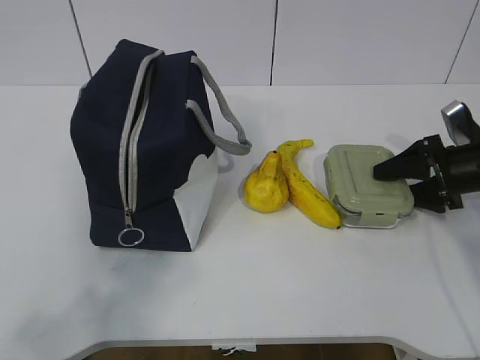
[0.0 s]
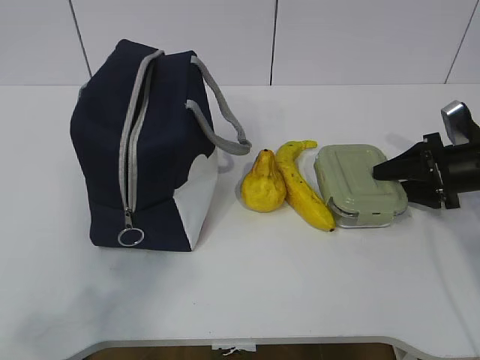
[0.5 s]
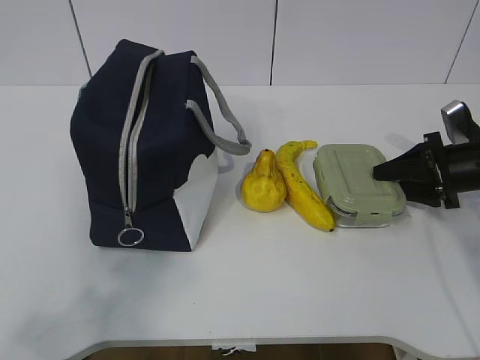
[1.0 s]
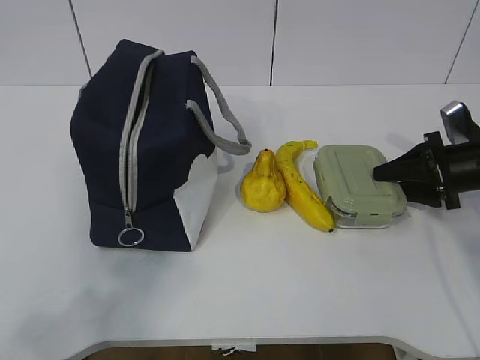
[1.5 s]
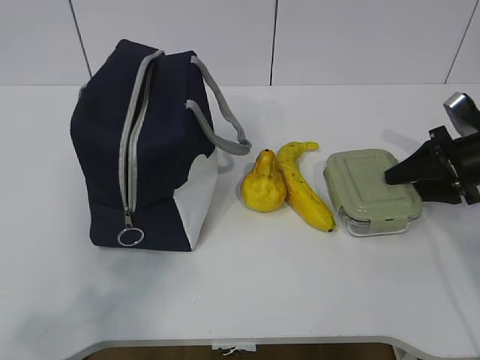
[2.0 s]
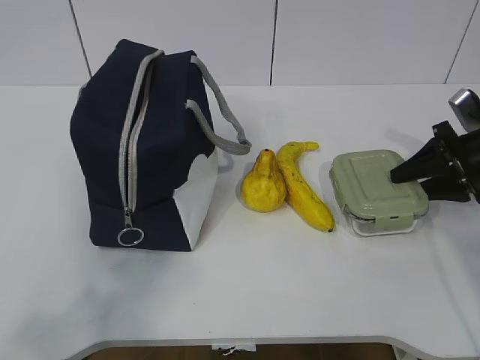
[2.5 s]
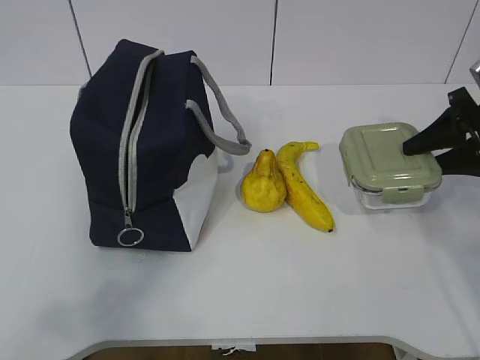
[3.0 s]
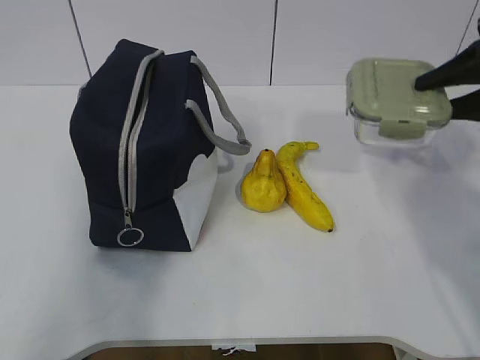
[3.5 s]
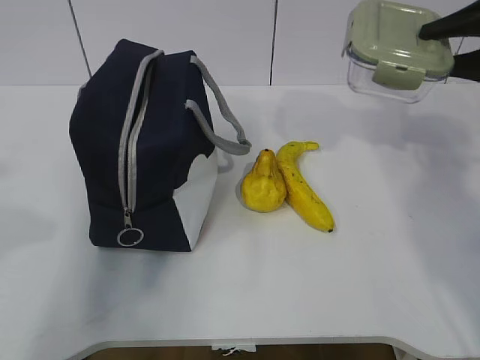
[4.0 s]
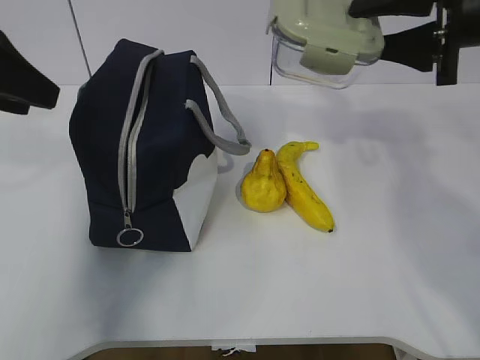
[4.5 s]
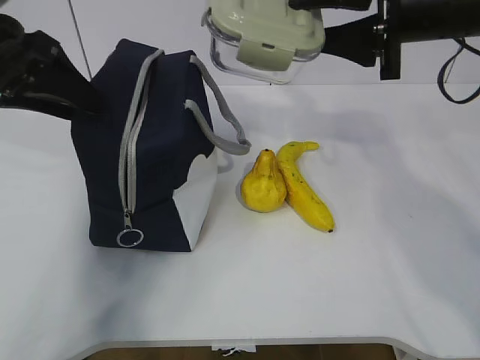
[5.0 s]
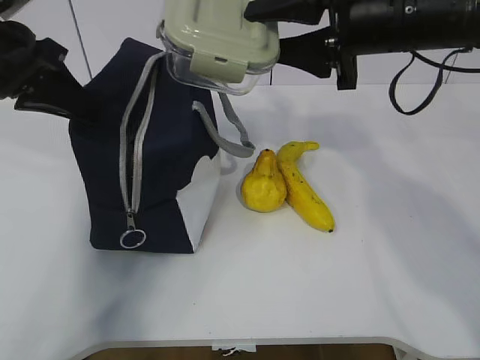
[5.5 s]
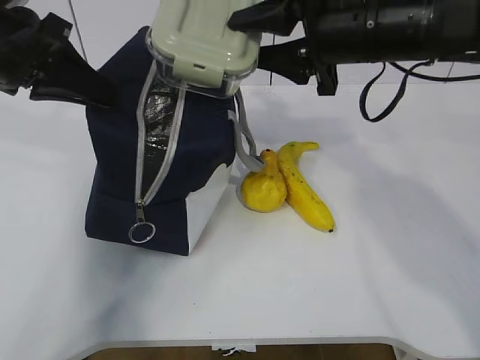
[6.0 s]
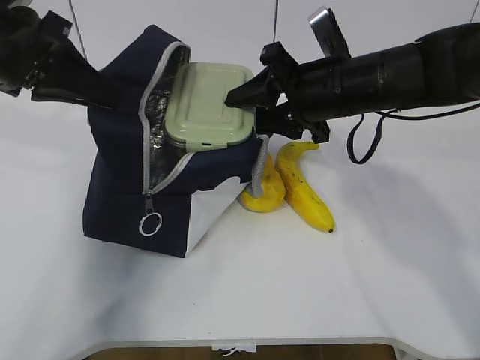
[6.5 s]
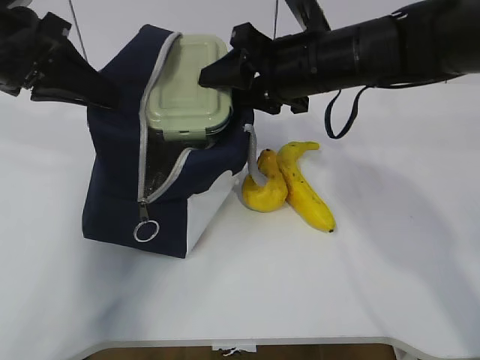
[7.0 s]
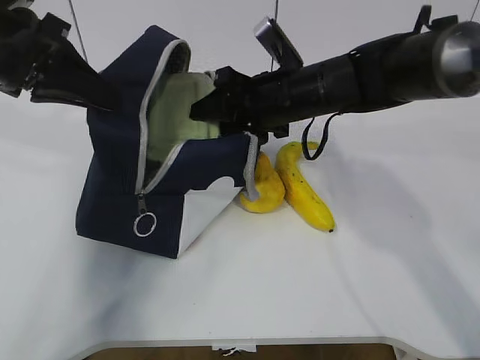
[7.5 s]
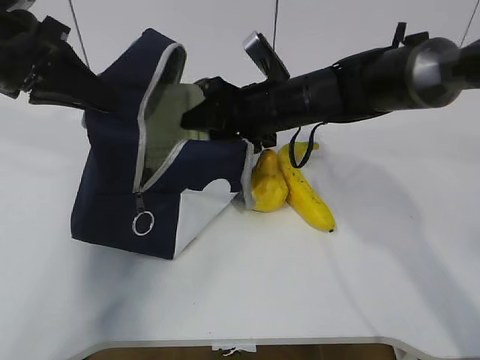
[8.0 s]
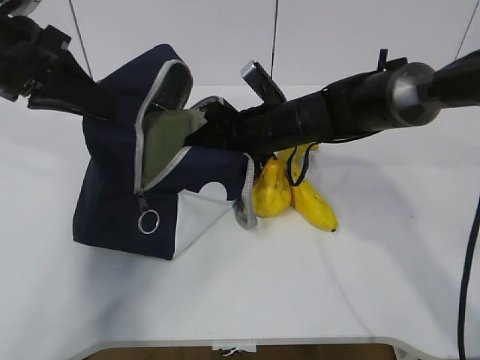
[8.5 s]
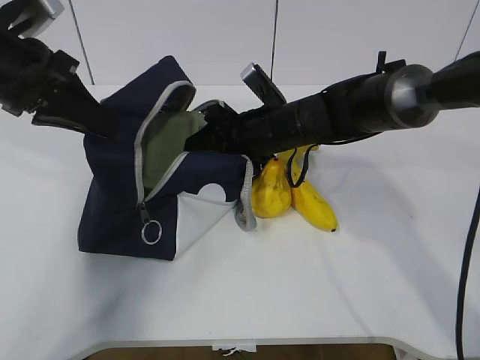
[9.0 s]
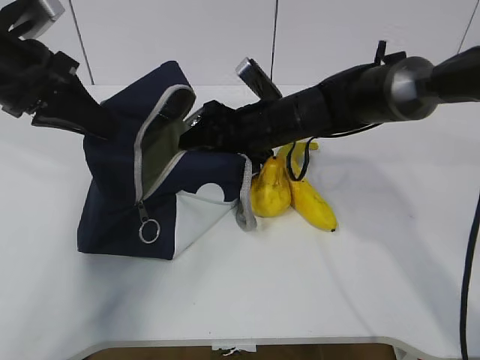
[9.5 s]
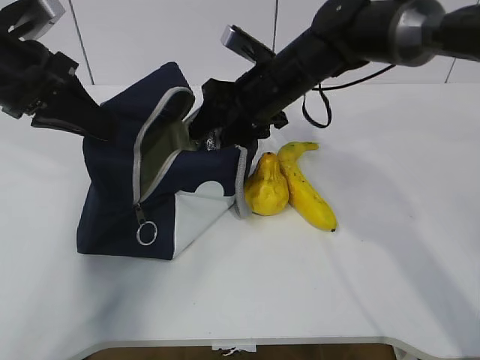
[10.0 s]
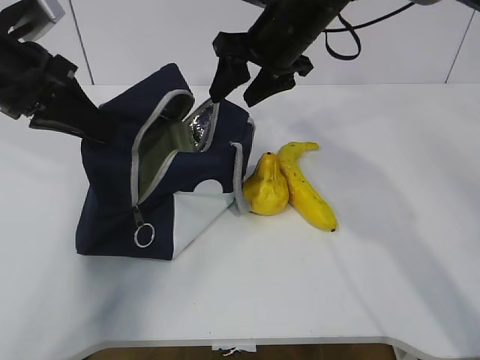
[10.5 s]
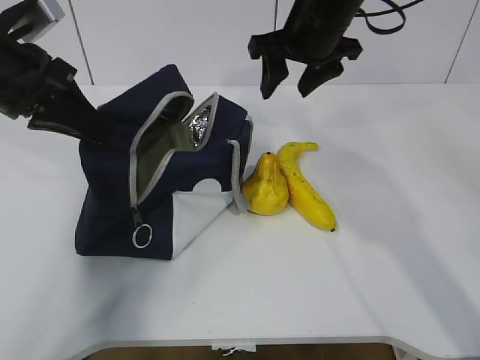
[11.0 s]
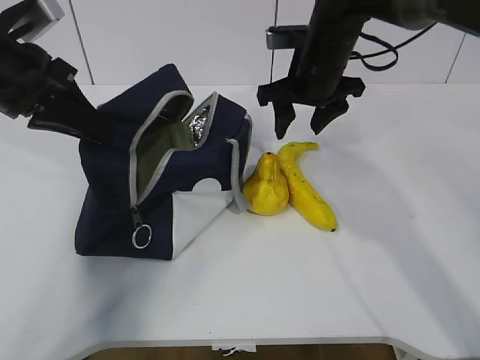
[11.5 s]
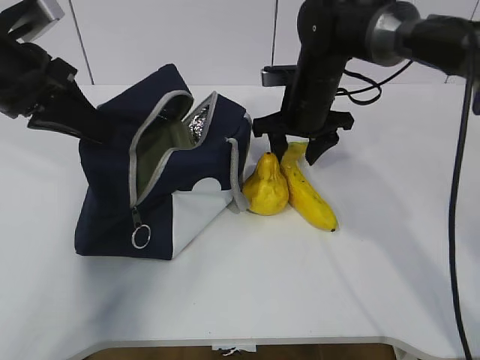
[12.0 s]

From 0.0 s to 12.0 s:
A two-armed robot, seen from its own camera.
Step, from 0.0 s to 3.5 s: Grab the lunch bag with your left hand.
Step, from 4.0 s to 6.0 s: Place it into the bag with your right hand.
Step, from 6.5 s to 9.5 s: Grab the banana with your right hand.
Step, from 10.0 s to 12.0 s: Place it into the bag with your right hand.
From 0.0 s to 2.0 s: The grippers stay close to where they were, moving slightly.
From 2.0 s to 4.0 s: The right gripper travels upward by about 15 cm; the left gripper shifts some 15 cm forward.
From 4.0 s to 6.0 s: The left gripper moves forward, approximately 20 cm, and closes up. The right gripper moves to the left, about 20 cm.
From 6.0 s to 8.0 s: The right gripper moves downward, forward and to the left, some 15 cm.
From 10.0 s to 12.0 s: The right gripper changes place by approximately 5 cm.

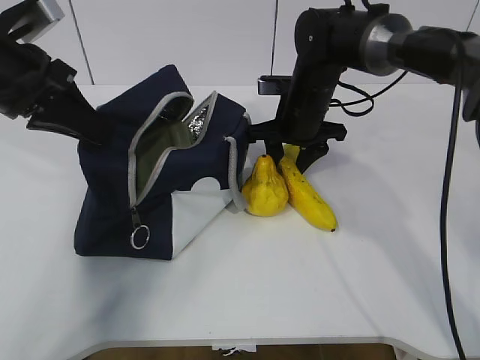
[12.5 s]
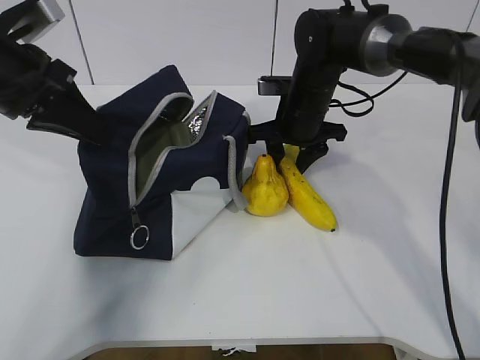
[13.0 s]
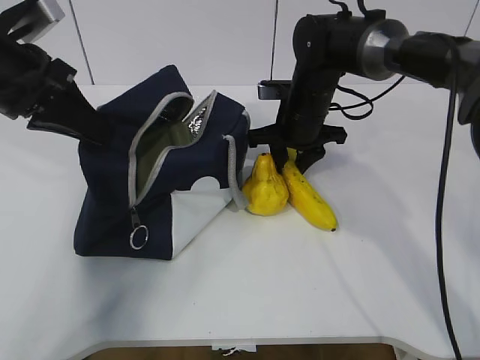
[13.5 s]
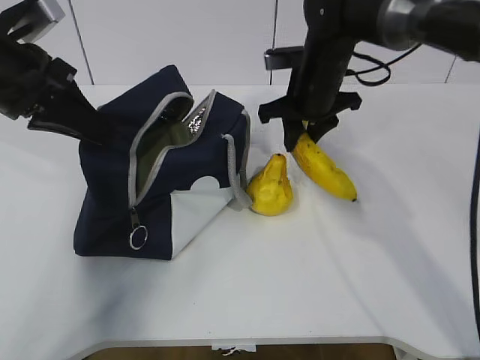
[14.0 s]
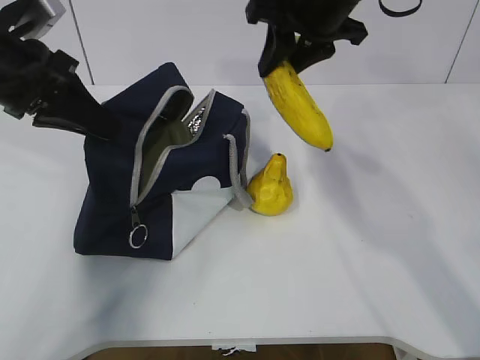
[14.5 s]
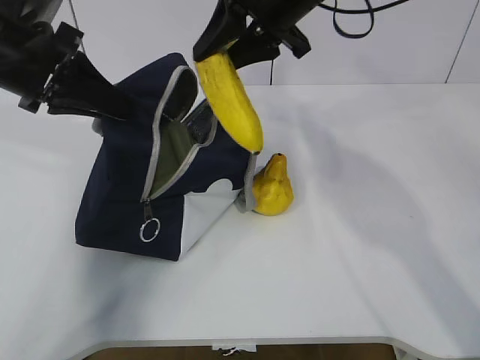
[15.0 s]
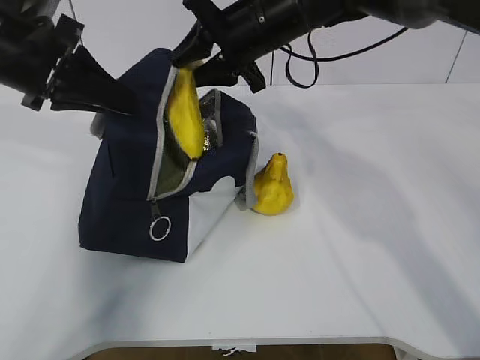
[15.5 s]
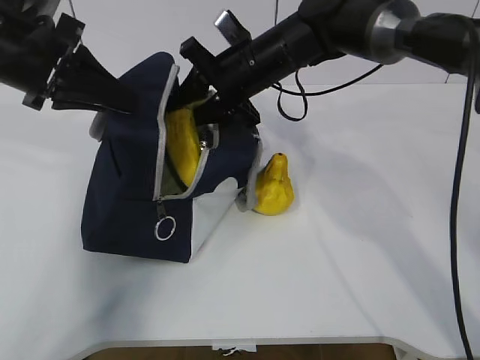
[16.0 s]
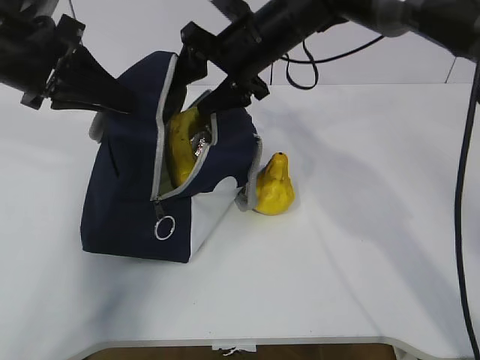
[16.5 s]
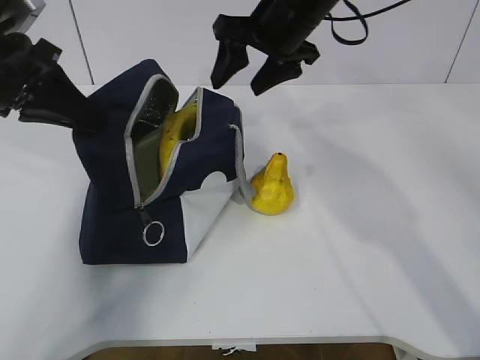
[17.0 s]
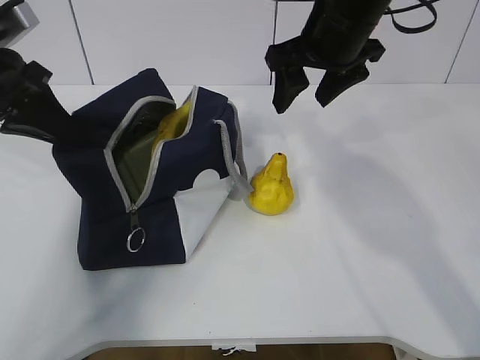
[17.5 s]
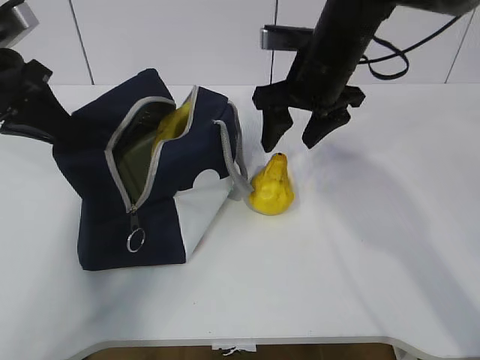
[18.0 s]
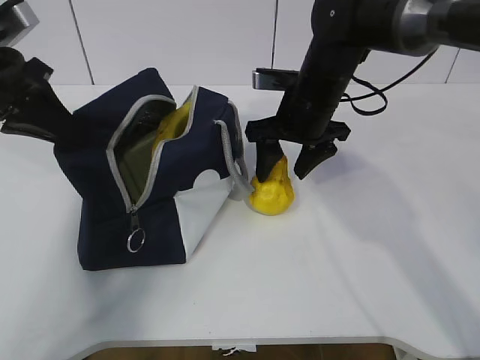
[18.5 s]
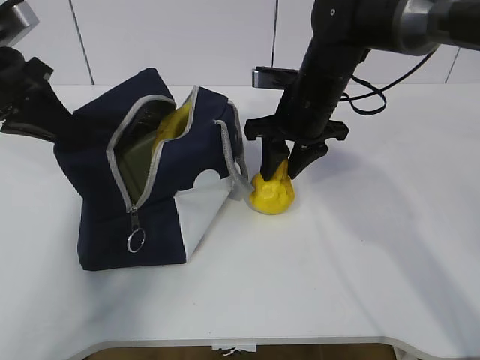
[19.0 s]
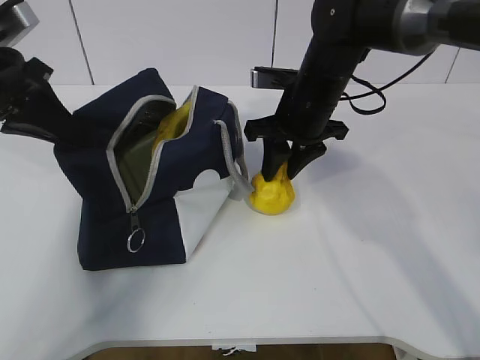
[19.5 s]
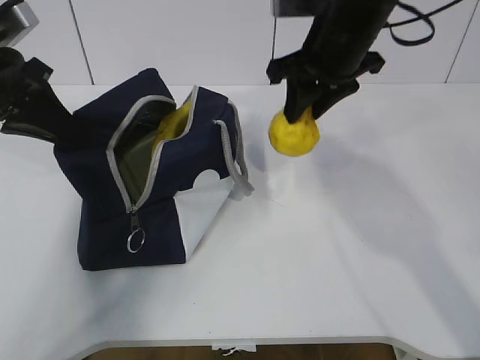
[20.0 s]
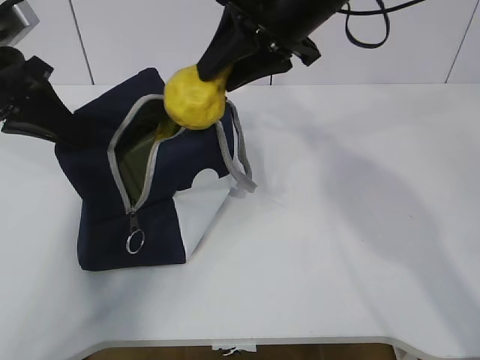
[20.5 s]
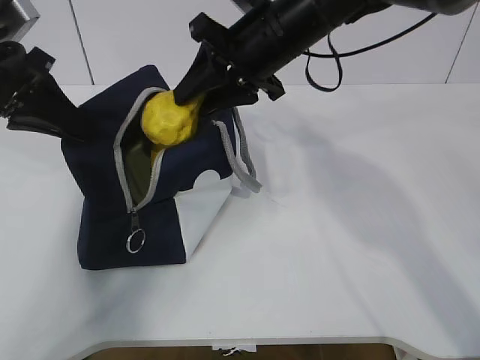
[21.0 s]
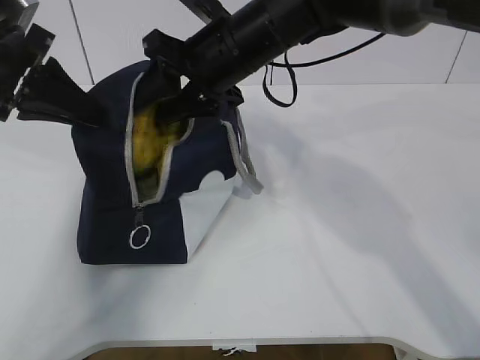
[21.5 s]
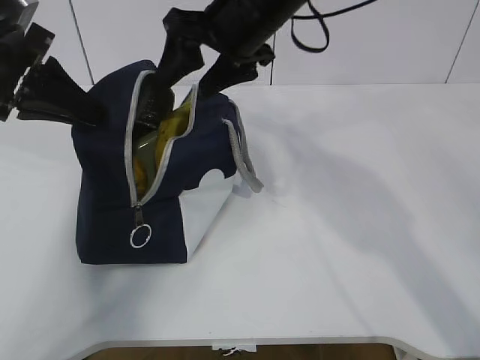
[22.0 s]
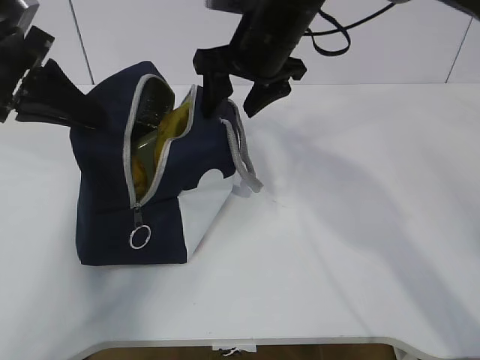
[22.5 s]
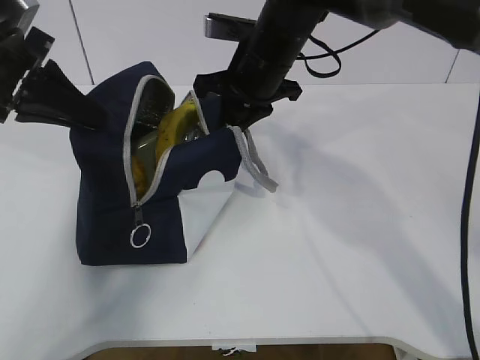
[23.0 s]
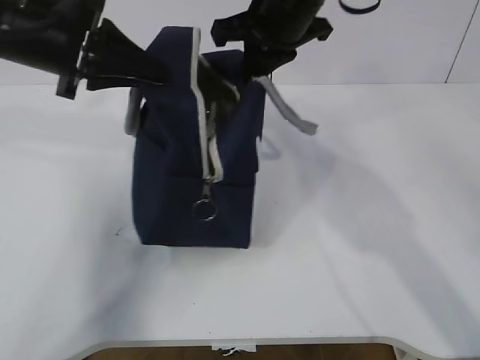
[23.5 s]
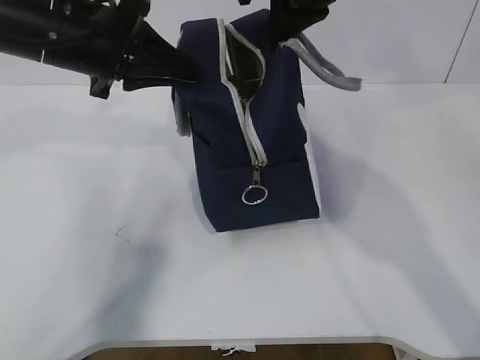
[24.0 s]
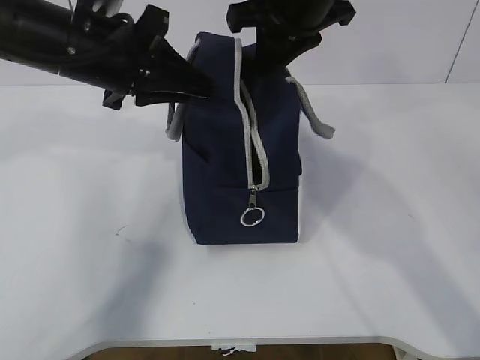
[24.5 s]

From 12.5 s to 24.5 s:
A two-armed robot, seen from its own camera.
Step, from 12.5 s to 14.5 s: Grab the pear with your right hand.
Step, from 17.0 s to 17.5 s: Grab the lunch bag with your right hand.
Step, from 18.0 s to 19.0 s: Move the lunch bag to the right.
From 12.5 s to 14.5 s: The right gripper heads upward, covering about 15 cm.
From 14.5 s to 16.5 s: The right gripper travels downward and to the left by about 10 cm, and opens up.
From 16.5 s to 18.5 s: The right gripper moves downward and to the right, about 10 cm.
From 18.5 s to 20.5 s: The right gripper travels upward by some 15 cm, and closes its fingers.
From 20.5 s to 22.5 s: The right gripper moves downward, some 5 cm, and opens.
From 22.5 s to 24.5 s: The left gripper shifts roughly 10 cm to the right, while the right gripper heads upward, covering roughly 5 cm, and closes its fingers.

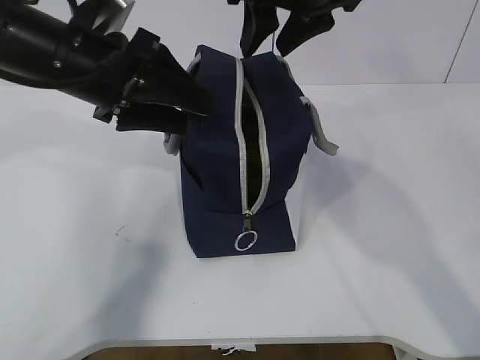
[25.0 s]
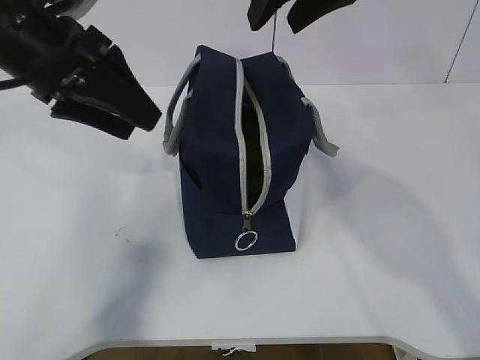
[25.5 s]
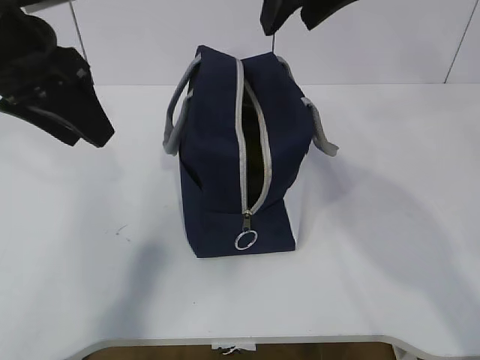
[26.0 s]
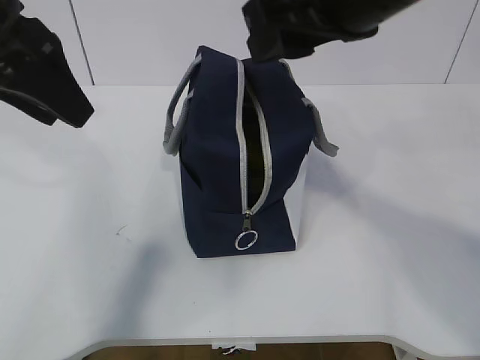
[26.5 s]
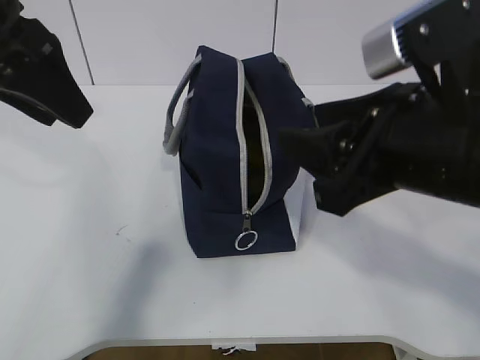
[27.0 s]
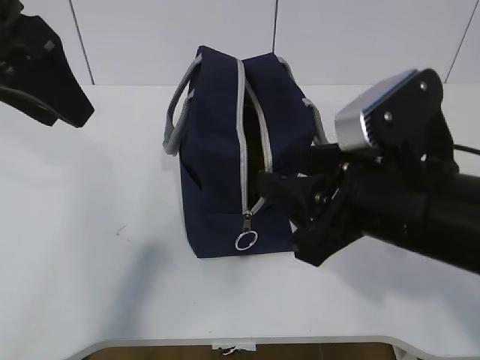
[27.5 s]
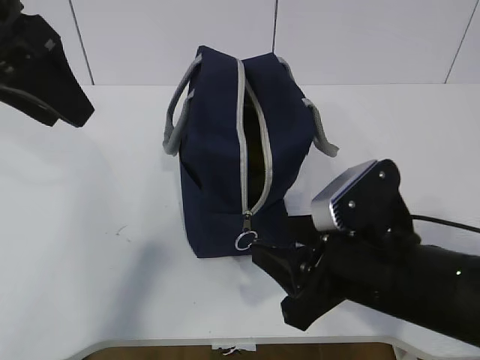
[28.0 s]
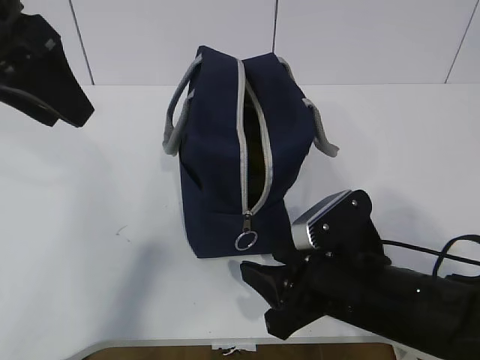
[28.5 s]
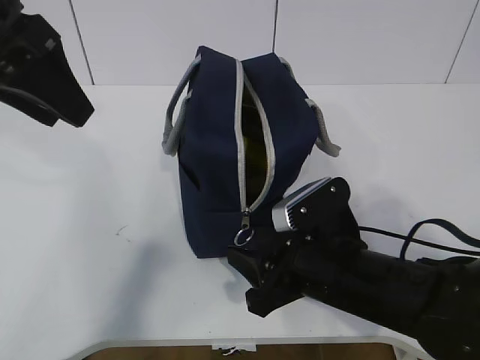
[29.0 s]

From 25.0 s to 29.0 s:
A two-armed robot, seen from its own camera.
From 25.0 s to 27.0 s: The right gripper goes approximately 20 cm backward and downward. Meanwhile the left gripper heads upward and backward, covering some 10 cm.
From 27.0 s to 29.0 s: The right gripper goes roughly 15 cm downward.
